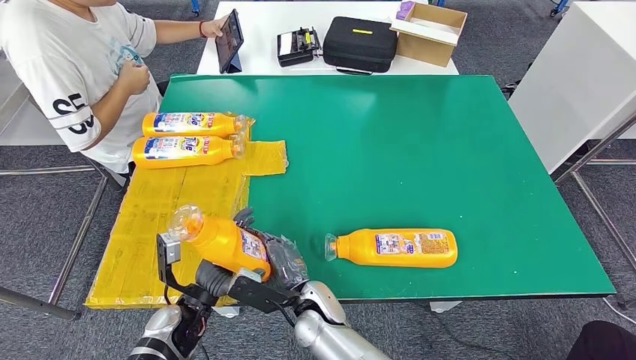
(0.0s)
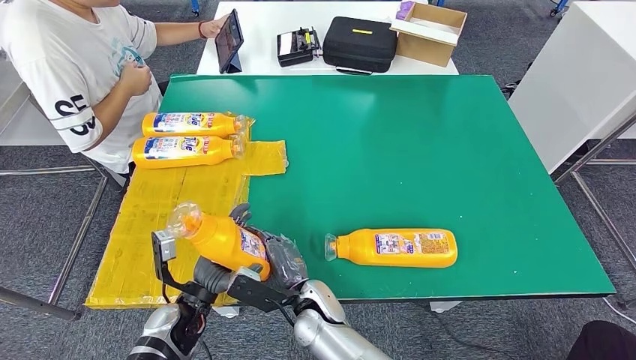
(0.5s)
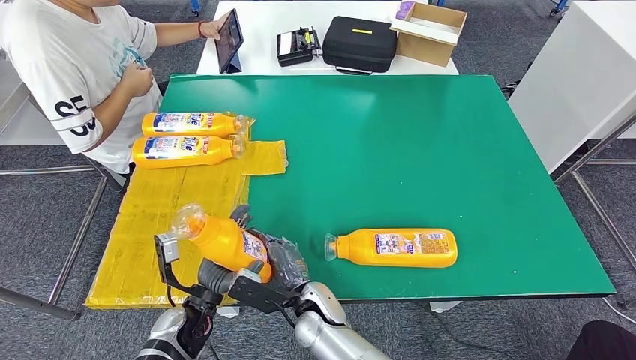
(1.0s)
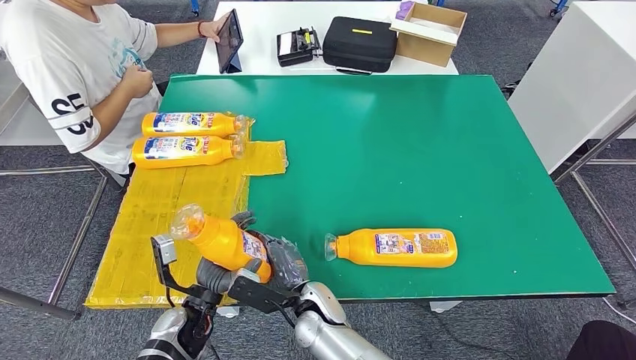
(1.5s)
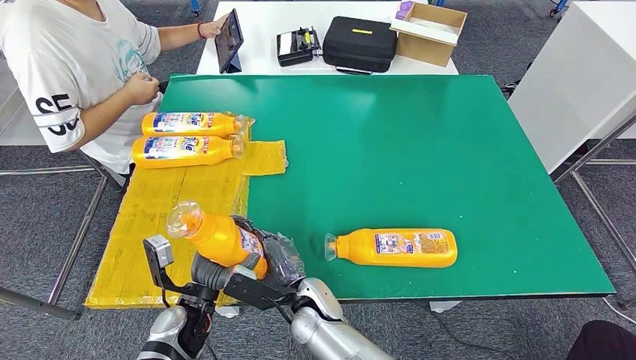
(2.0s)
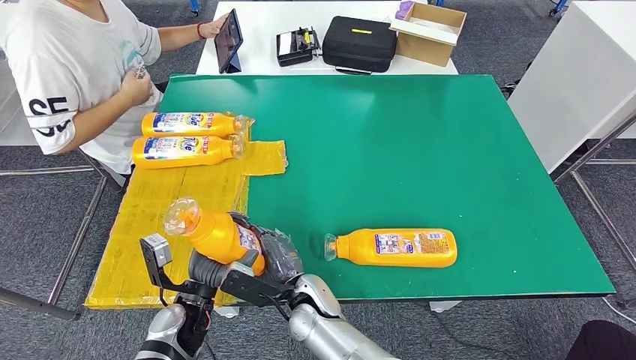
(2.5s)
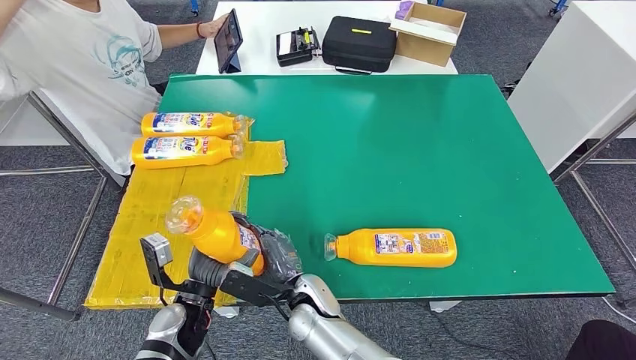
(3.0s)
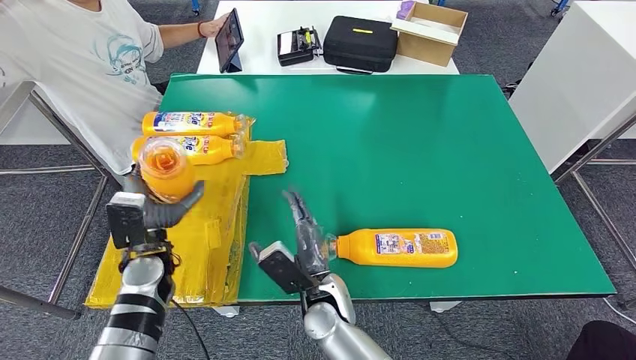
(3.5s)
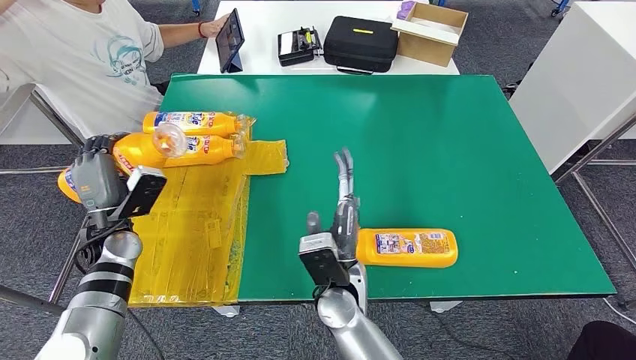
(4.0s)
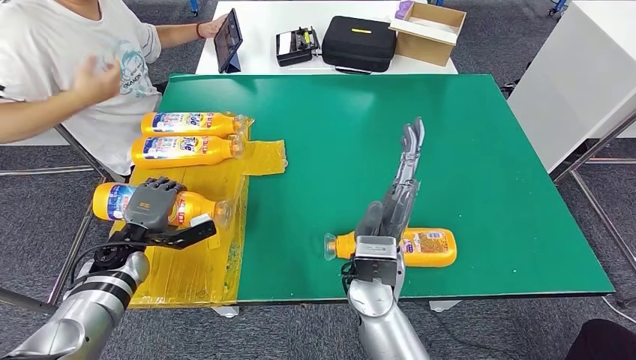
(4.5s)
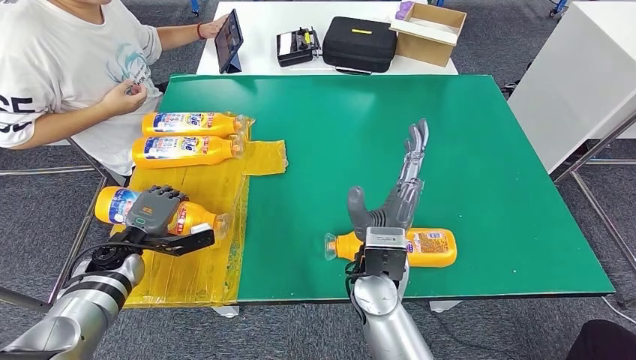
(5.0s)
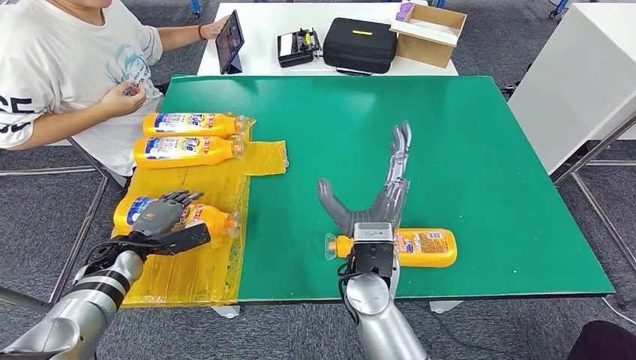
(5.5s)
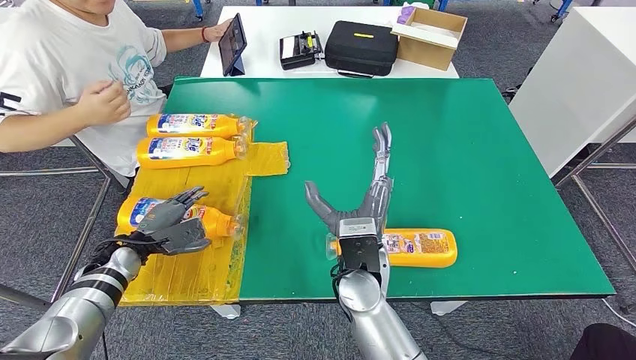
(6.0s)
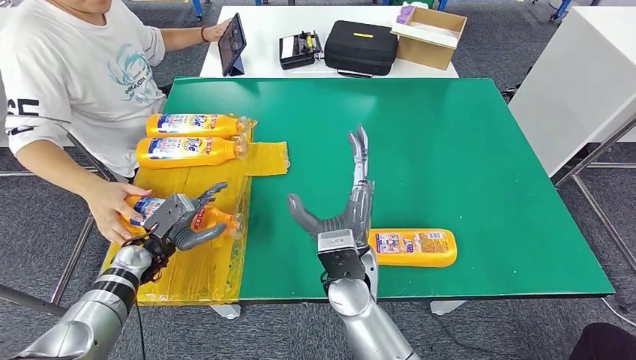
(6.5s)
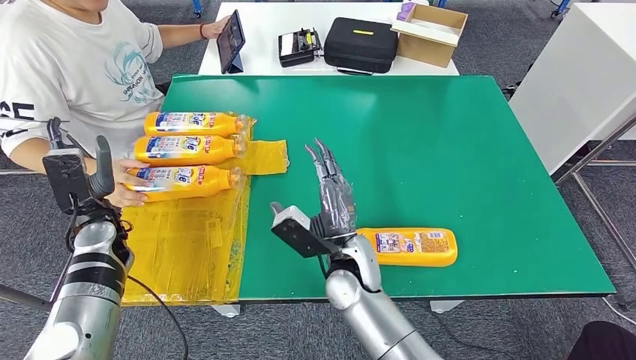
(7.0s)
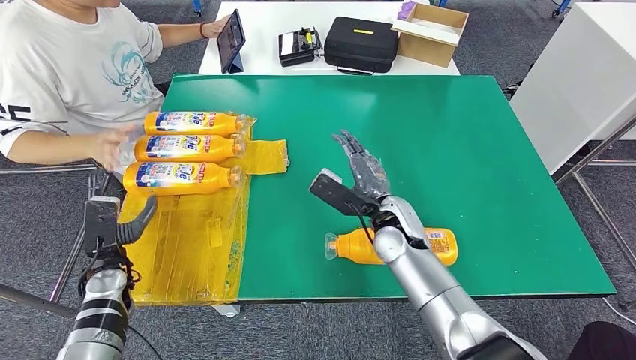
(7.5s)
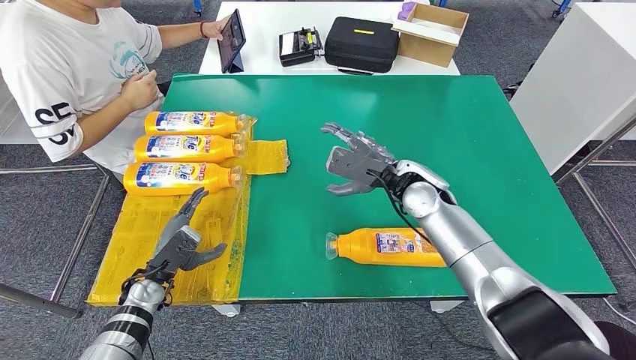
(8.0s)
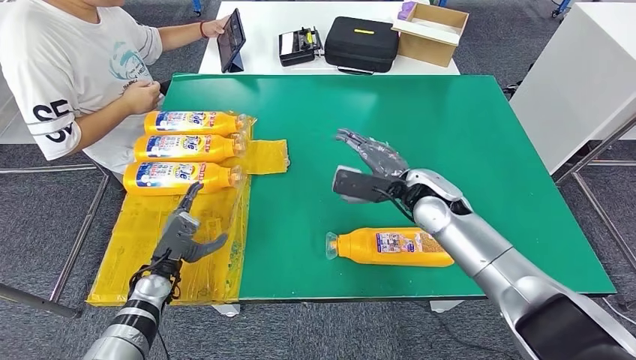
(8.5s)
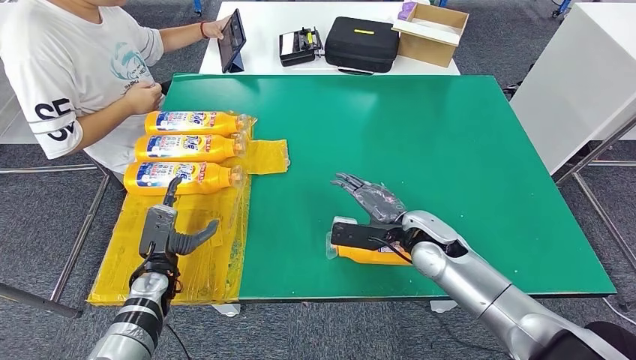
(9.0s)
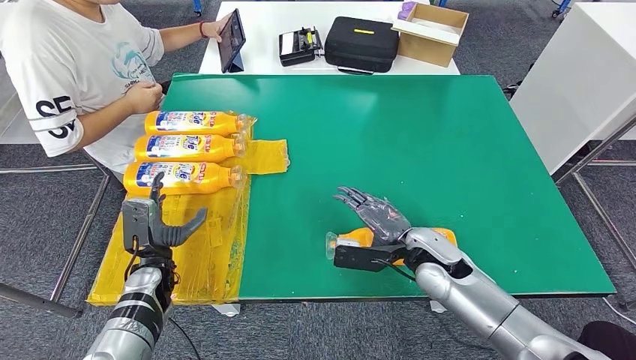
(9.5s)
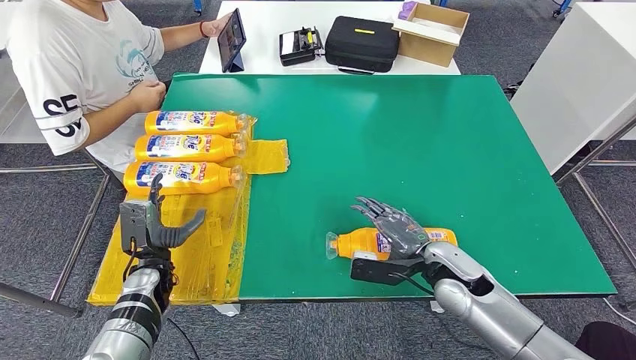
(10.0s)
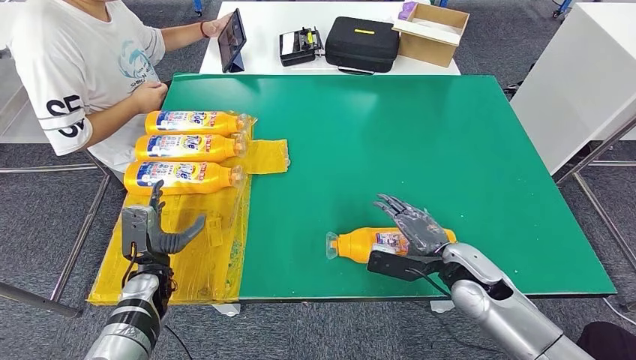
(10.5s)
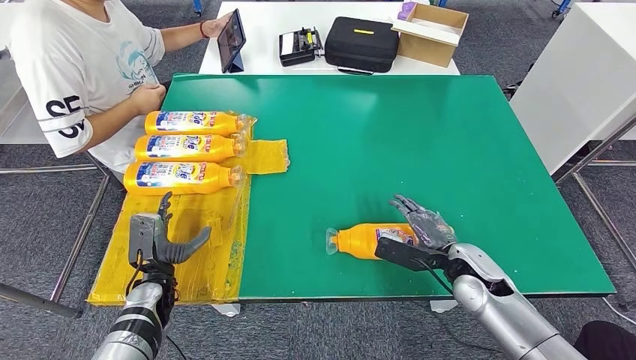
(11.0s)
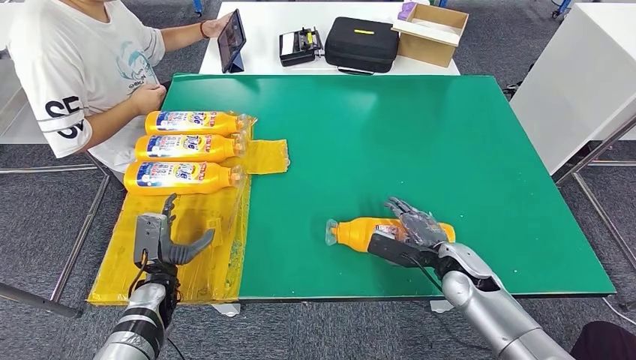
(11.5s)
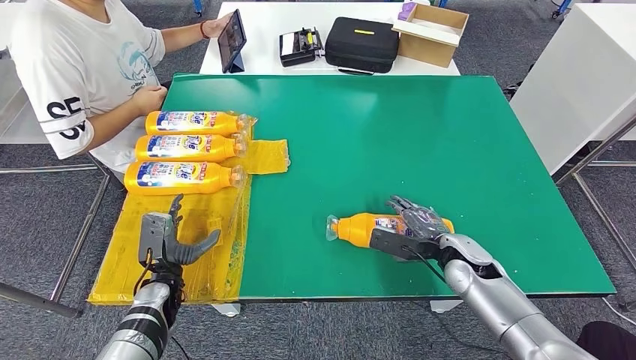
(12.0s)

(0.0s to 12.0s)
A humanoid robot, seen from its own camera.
Step, 0.0s - 8.0s: Flip the fast-moving consumer goods bottle to the front side.
0.0s - 2.0s: The hands move only a little.
8.0s - 10.0s: The right hand travels backward and downward by about 15 cm.
10.0s - 12.0s: The right hand shifts by roughly 5 cm.

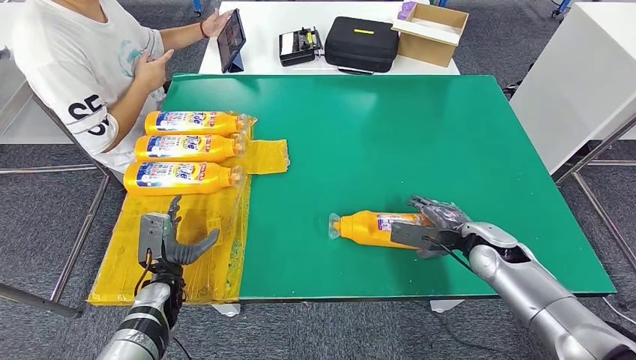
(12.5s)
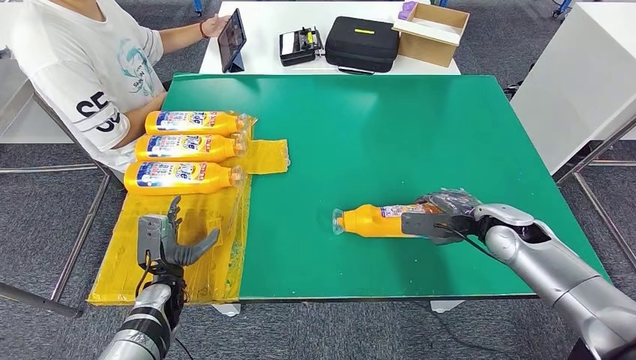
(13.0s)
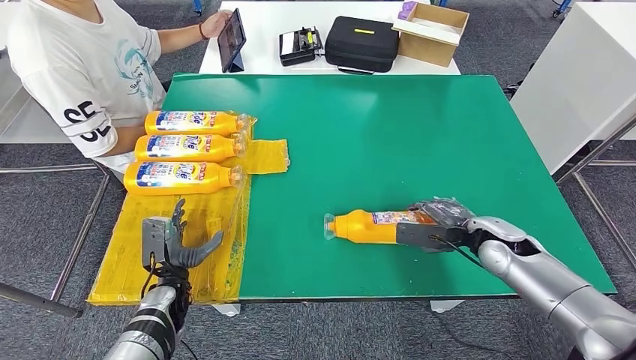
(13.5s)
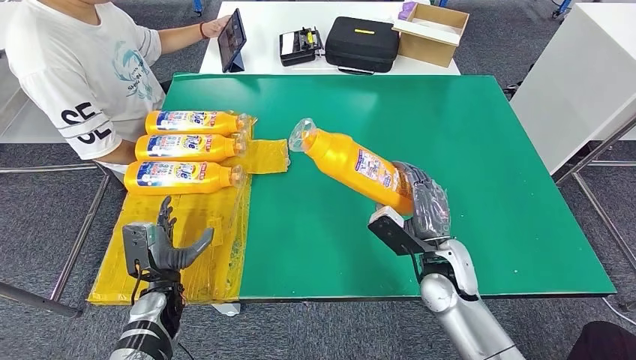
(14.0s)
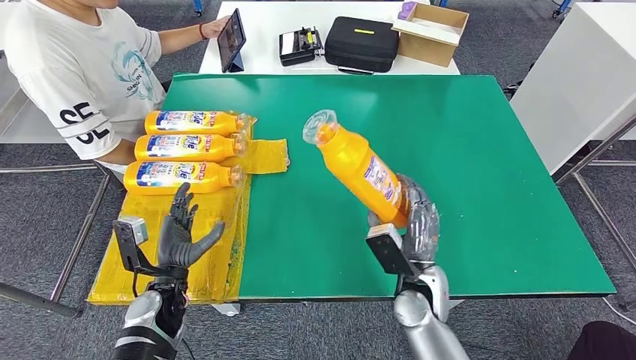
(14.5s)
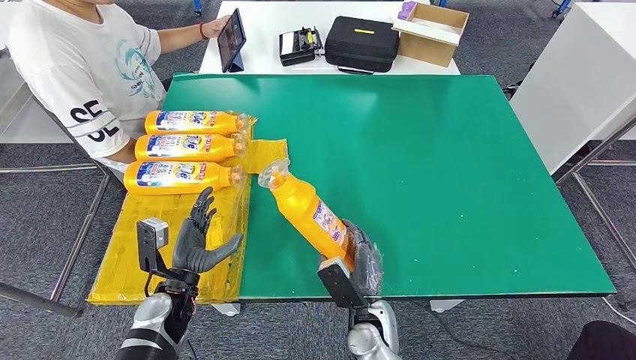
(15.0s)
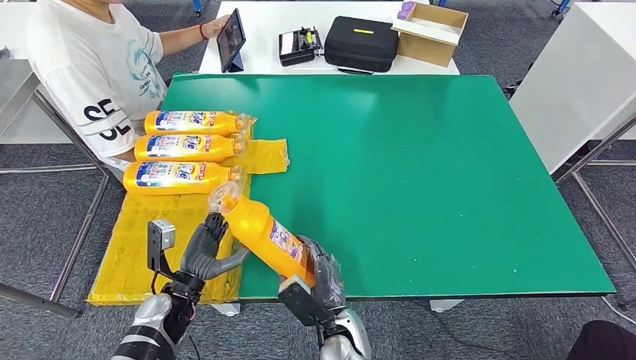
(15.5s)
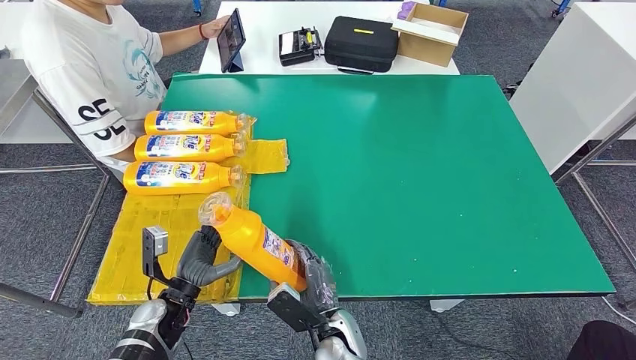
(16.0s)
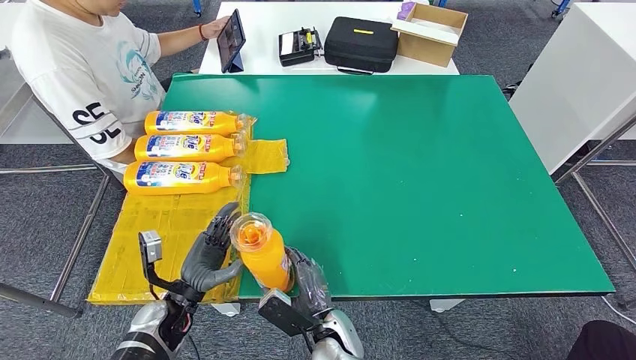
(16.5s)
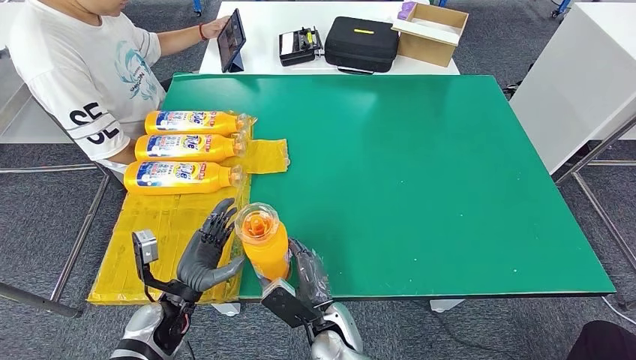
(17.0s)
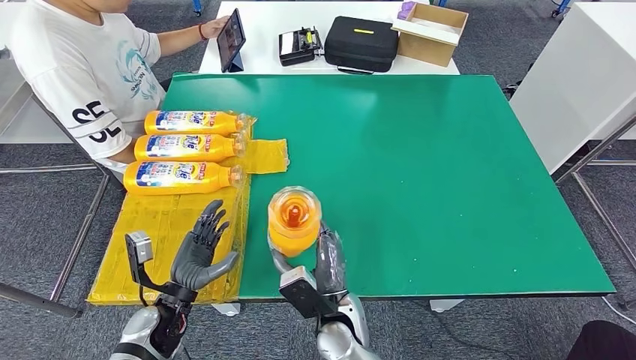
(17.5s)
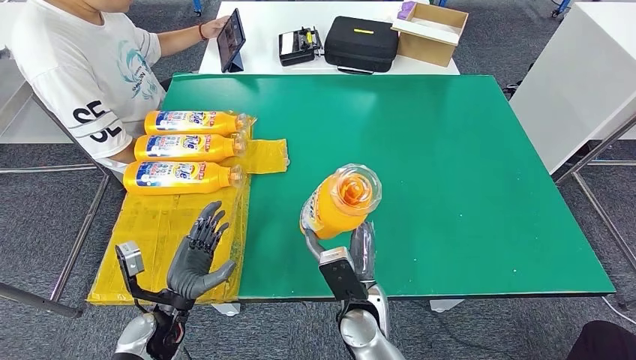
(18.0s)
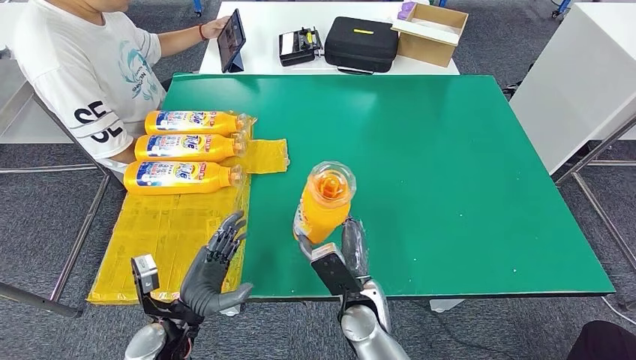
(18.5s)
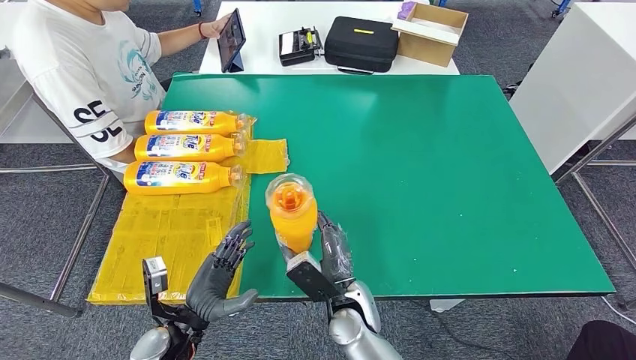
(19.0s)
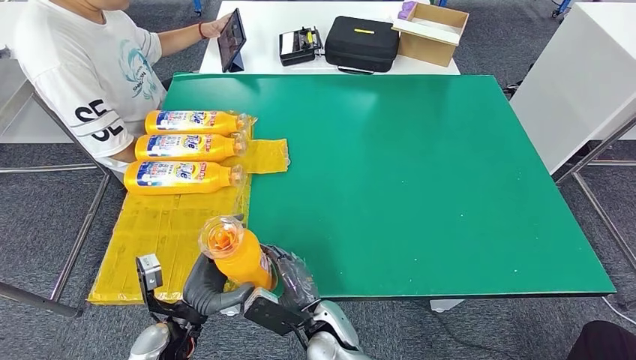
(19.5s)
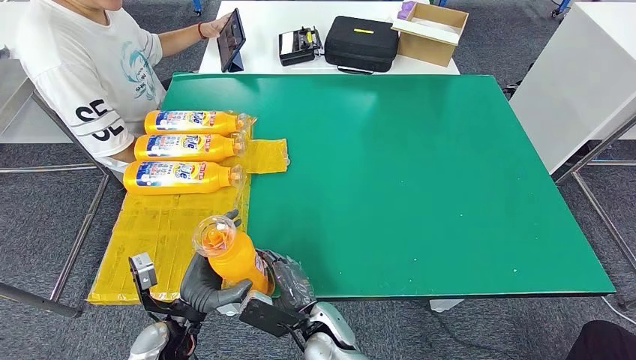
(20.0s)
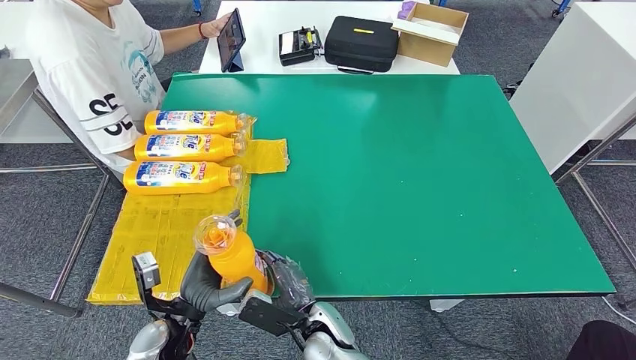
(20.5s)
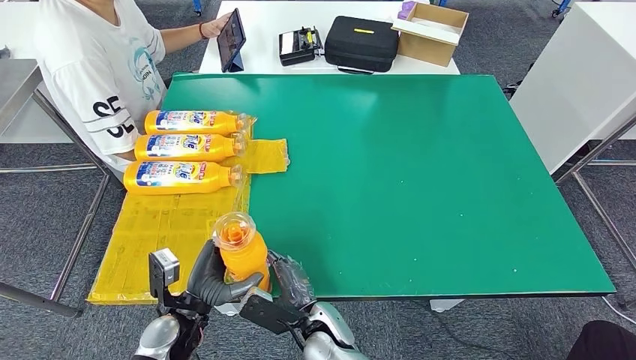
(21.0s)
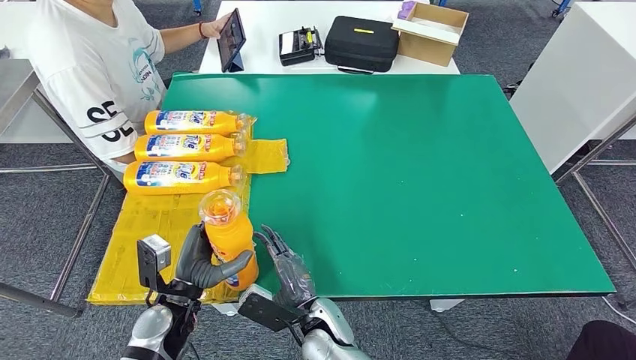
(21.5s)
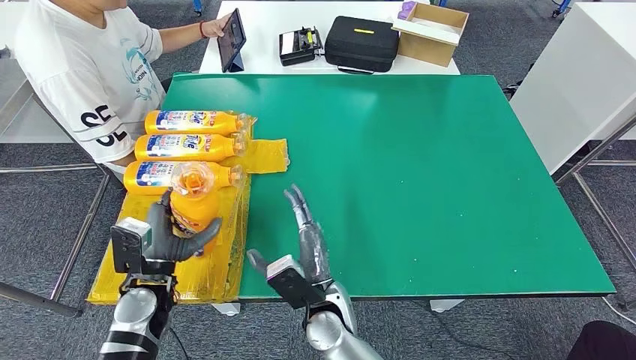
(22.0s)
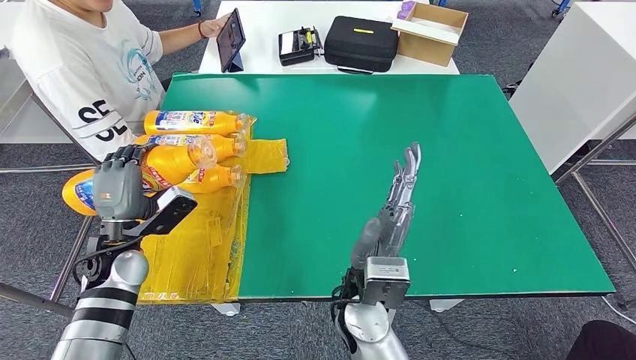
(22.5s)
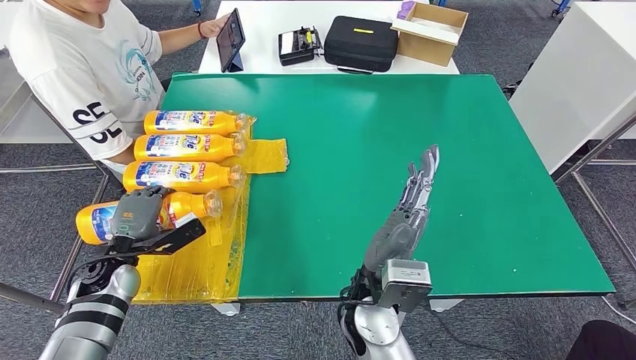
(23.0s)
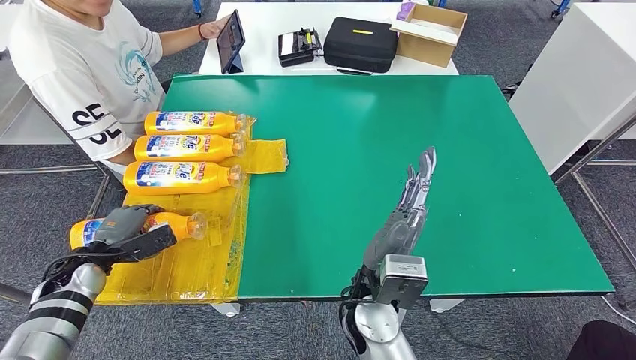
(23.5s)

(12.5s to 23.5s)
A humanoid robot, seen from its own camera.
Step, 12.5s - 16.0s: Pick up the fast-moving consumer goods bottle from the table.
12.5s - 14.5s: The left hand moves approximately 5 cm. The right hand is displaced to the left by roughly 15 cm.
14.5s - 16.0s: The right hand heads to the left, downward and backward, covering some 15 cm.
16.0s - 18.0s: The right hand is displaced upward by approximately 10 cm.
18.0s - 20.0s: The right hand moves to the left and downward, some 10 cm.
20.0s - 21.5s: The hands make only small movements.
